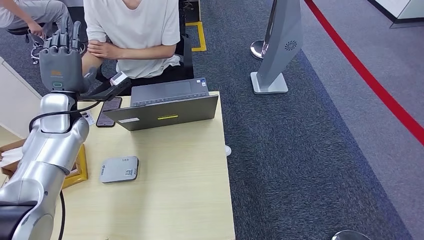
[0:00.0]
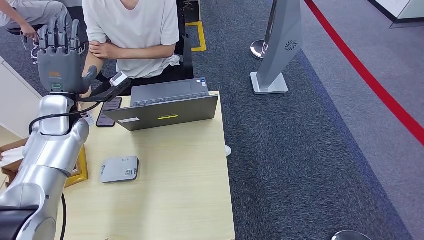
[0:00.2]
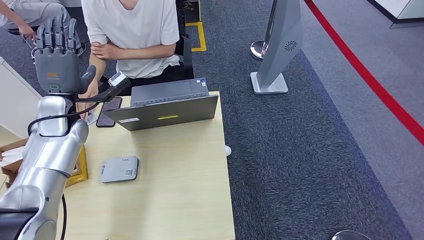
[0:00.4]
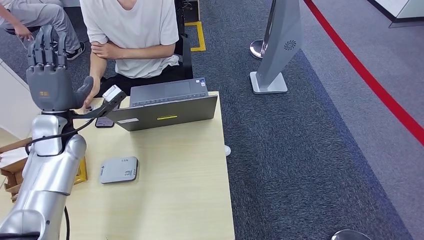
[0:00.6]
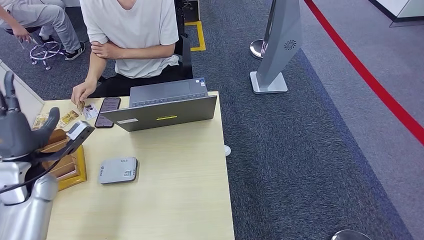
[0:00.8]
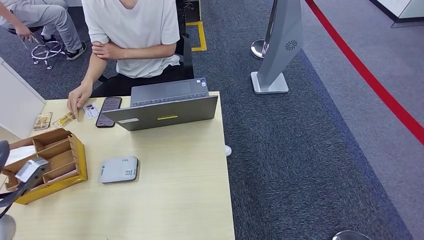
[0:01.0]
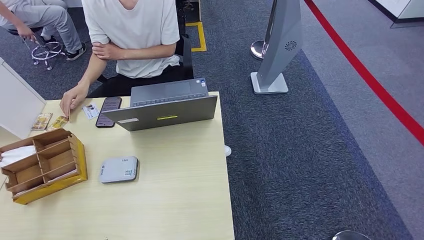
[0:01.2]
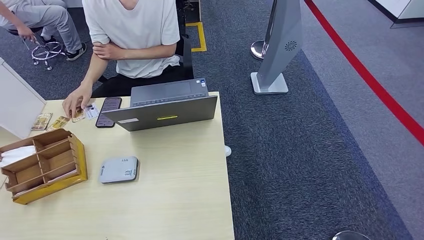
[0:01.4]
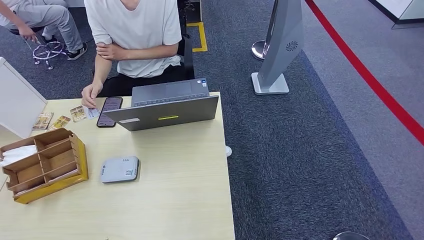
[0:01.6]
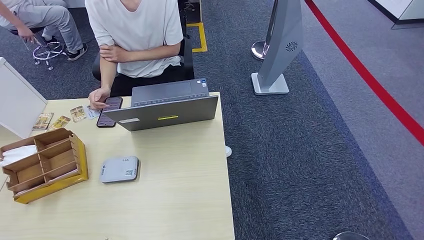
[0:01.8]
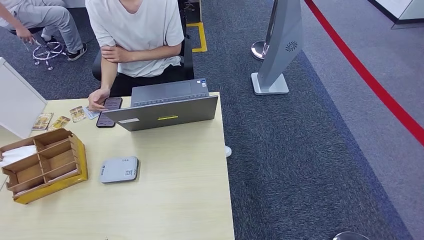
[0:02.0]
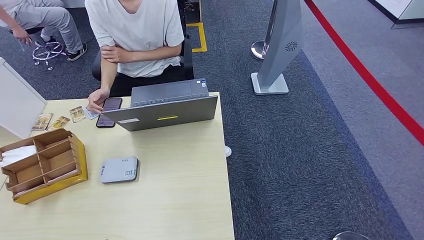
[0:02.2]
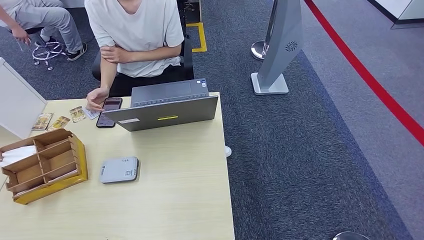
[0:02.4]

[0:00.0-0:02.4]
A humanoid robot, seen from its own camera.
Step, 0:00.0 to 0:02.4: Hand the room key to the person.
0:00.0 to 0:01.2: The left hand moves backward and to the left, some 35 cm.
0:01.2 to 0:02.4: The left hand travels backward, to the left and downward by some 30 cm.
